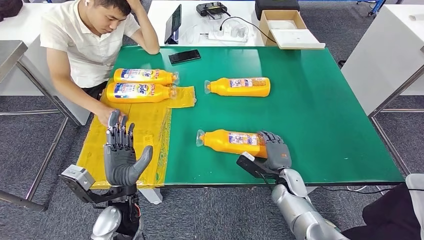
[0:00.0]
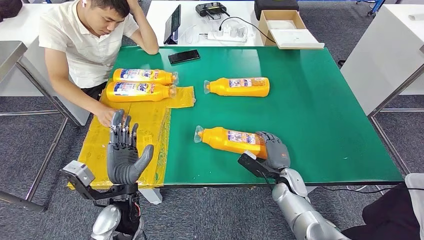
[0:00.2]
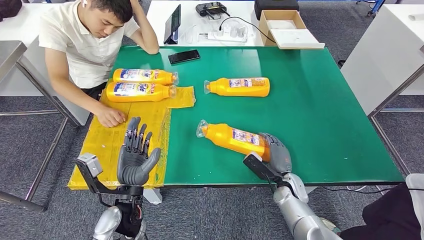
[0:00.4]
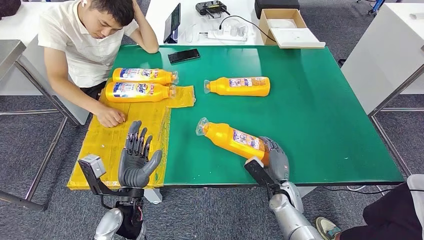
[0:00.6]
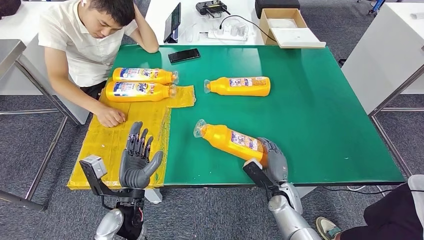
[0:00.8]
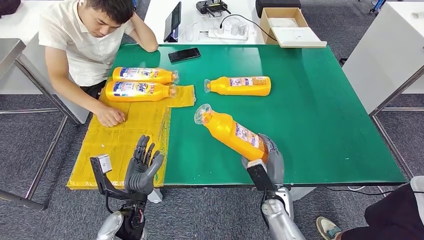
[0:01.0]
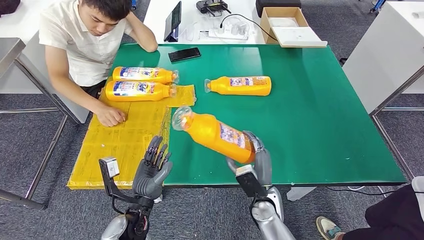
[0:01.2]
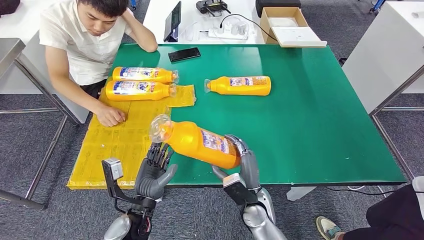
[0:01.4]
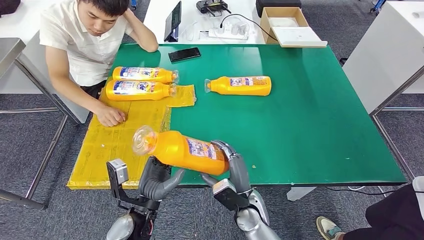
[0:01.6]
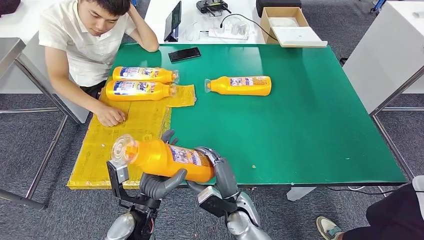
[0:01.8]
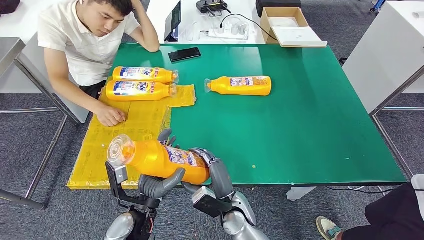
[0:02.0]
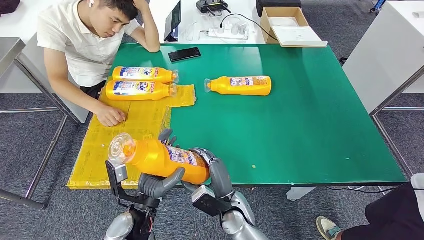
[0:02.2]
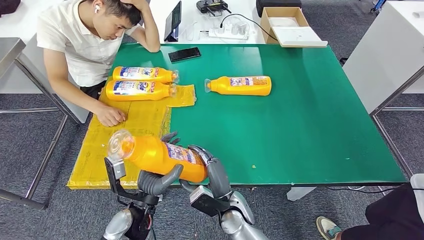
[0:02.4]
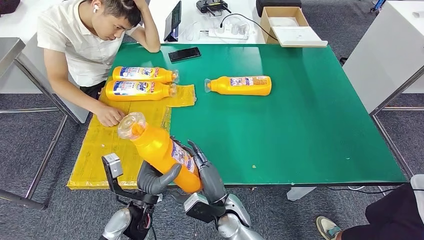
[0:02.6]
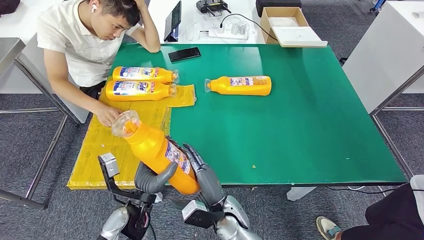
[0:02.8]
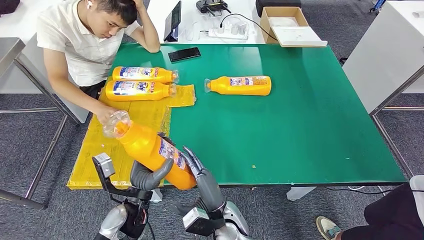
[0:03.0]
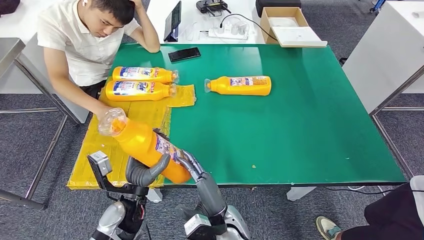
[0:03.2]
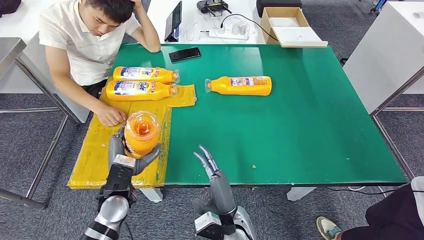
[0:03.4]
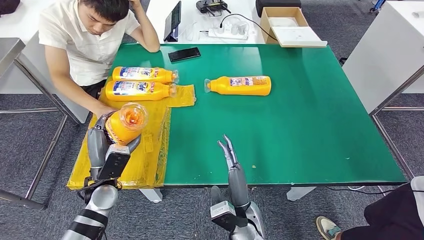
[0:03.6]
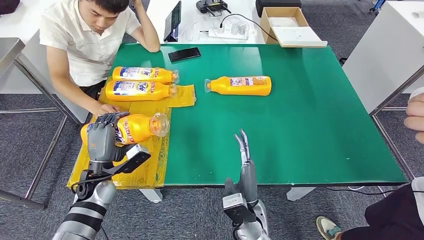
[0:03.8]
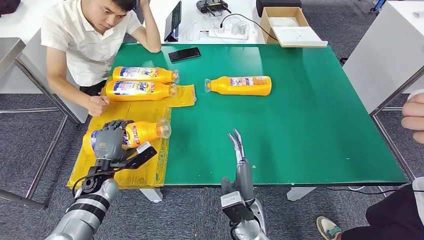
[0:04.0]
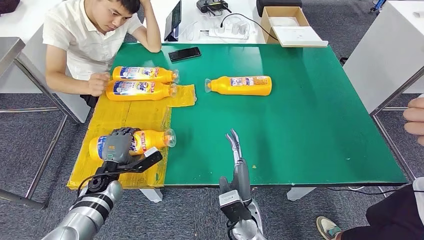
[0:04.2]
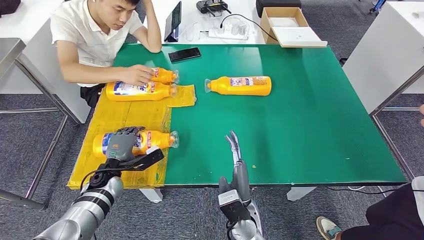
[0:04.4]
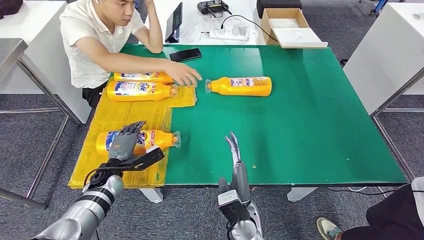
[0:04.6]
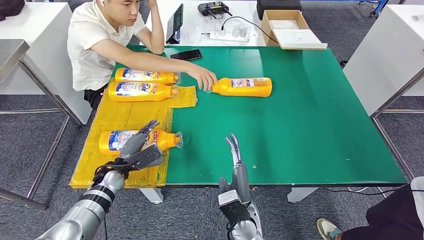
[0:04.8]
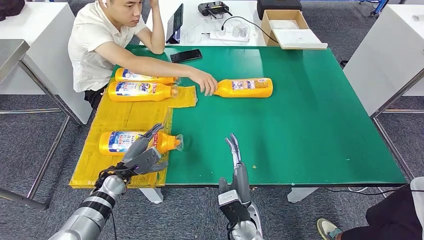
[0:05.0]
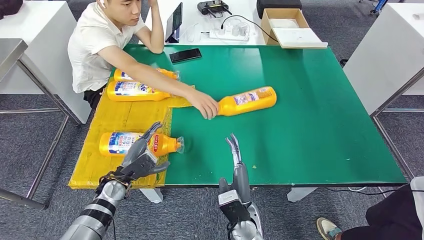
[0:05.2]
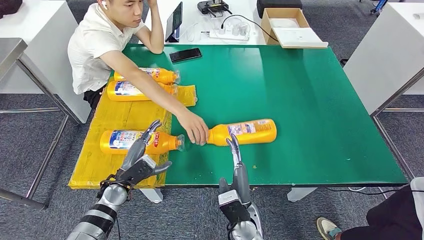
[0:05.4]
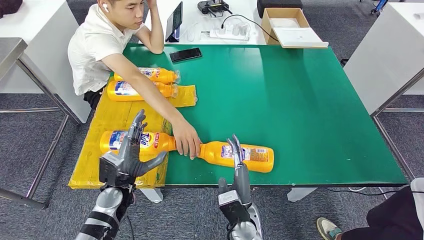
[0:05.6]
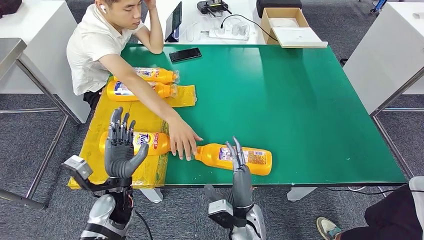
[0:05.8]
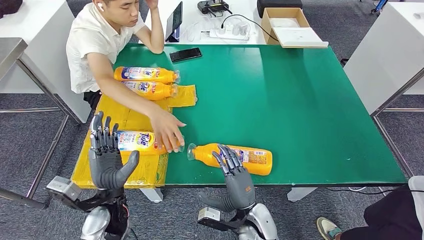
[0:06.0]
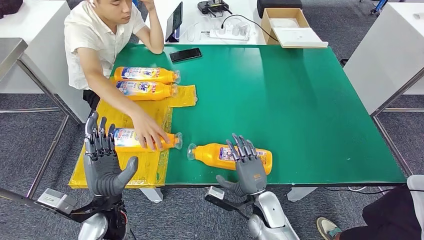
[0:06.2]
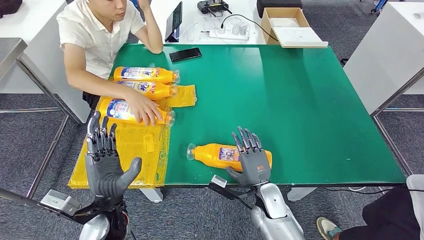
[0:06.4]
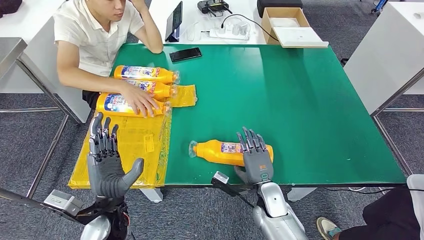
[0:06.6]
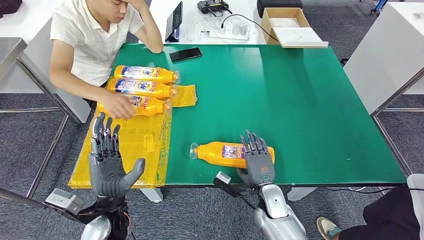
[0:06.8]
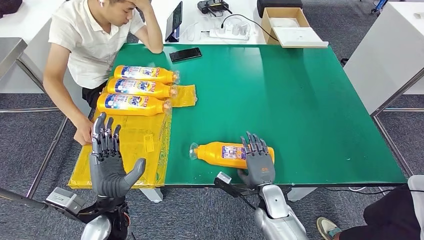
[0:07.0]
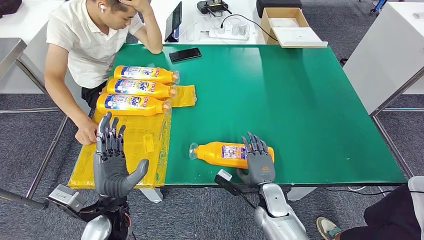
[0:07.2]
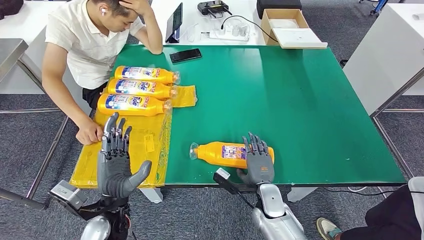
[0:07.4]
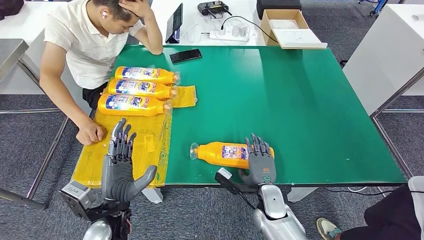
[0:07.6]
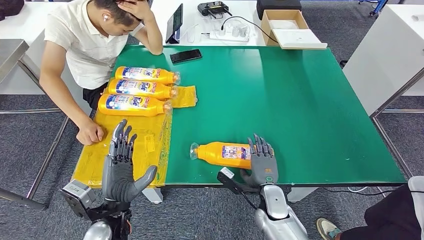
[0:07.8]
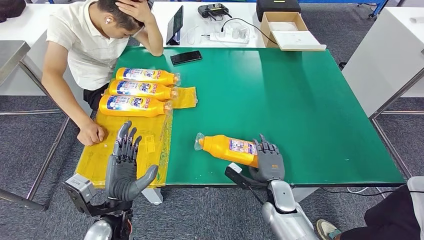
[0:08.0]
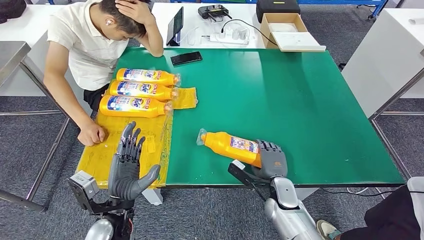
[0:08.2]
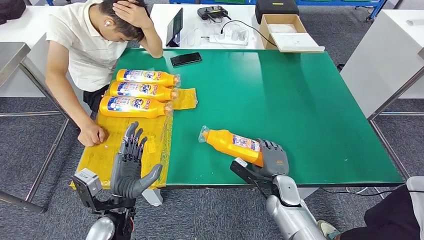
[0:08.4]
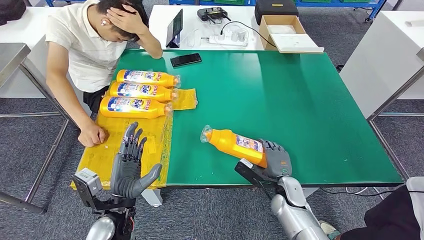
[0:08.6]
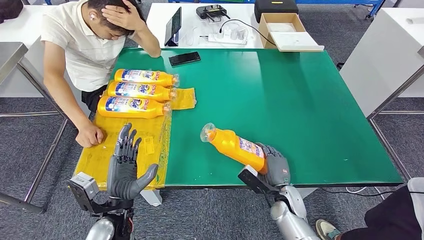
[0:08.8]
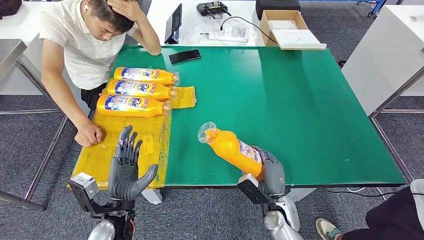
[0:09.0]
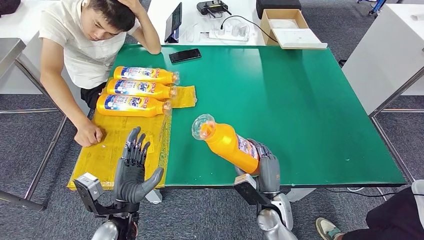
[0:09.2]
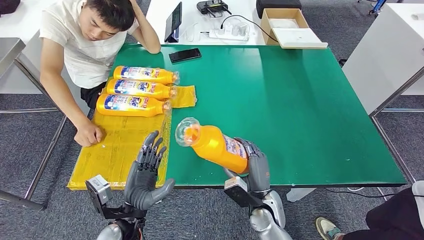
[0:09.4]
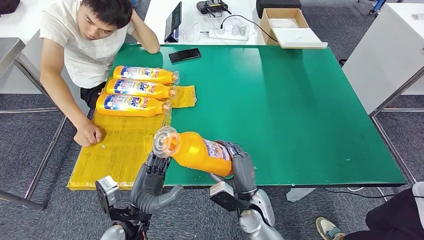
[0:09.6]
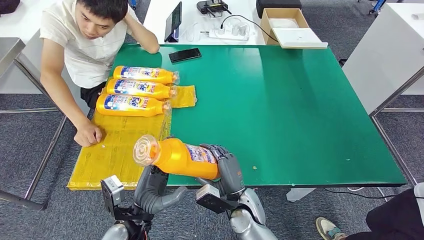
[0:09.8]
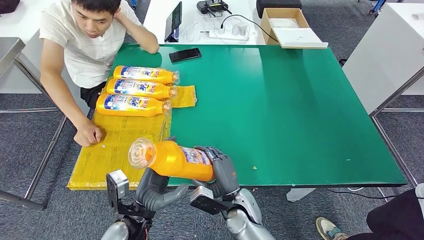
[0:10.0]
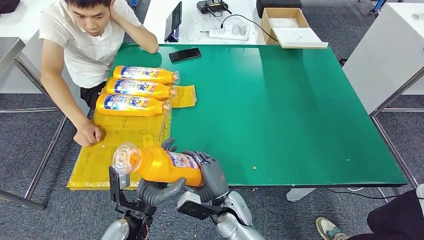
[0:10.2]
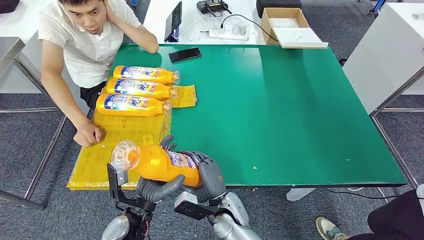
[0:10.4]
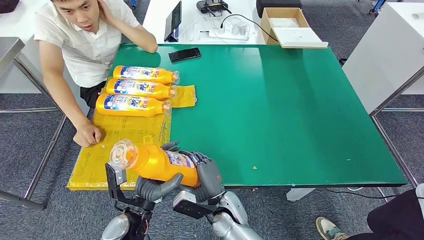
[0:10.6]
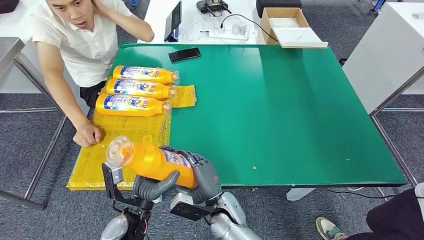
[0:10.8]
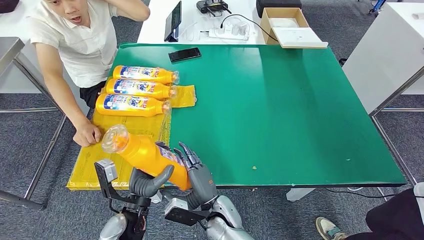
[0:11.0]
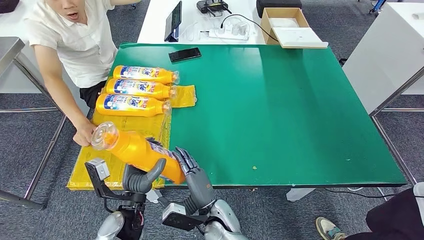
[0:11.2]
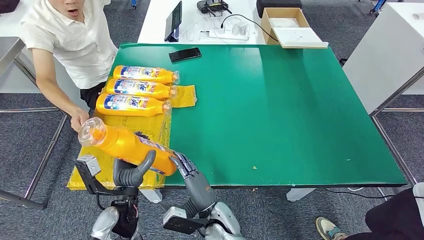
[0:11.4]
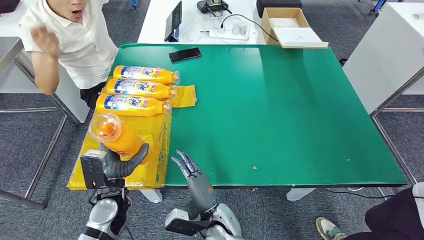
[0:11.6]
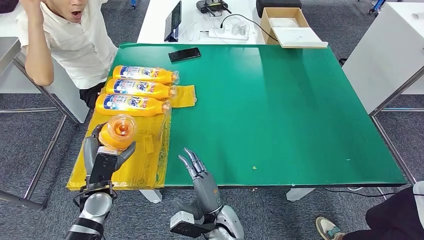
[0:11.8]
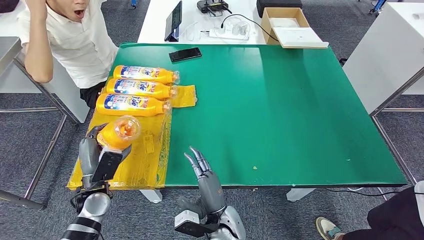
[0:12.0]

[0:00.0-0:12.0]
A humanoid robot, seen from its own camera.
Step, 0:00.0 to 0:03.0: Pick up the fast-moving consumer goods bottle from the table.
Step, 0:03.2 to 0:05.6: Flip the fast-moving consumer goods bottle to the front side.
Step, 0:05.8 to 0:09.2: Pick up the fast-moving consumer goods bottle from the table.
0:01.6 to 0:03.0: The right hand travels to the left by approximately 5 cm.
0:03.0 to 0:04.4: The left hand travels forward, to the left and downward by about 15 cm.
0:10.4 to 0:12.0: The left hand shifts approximately 15 cm to the left and forward.

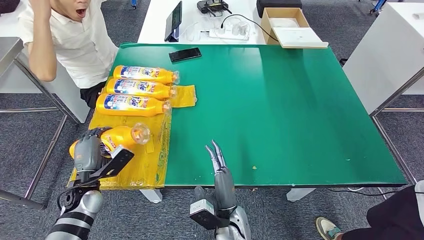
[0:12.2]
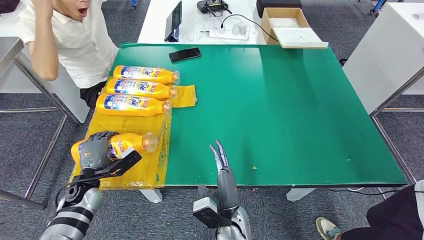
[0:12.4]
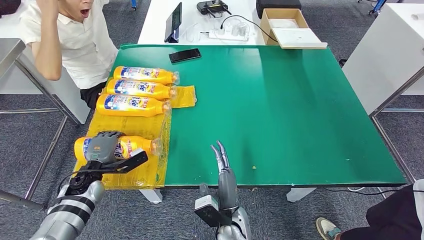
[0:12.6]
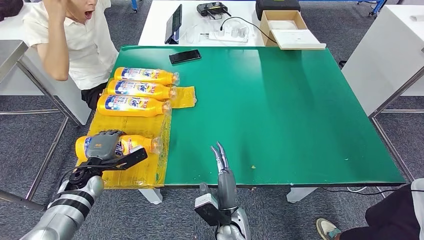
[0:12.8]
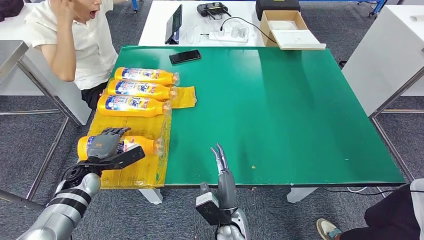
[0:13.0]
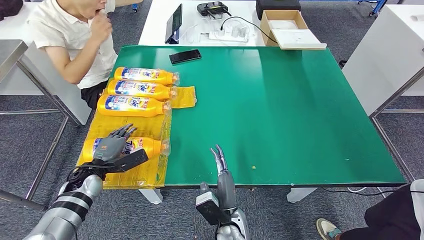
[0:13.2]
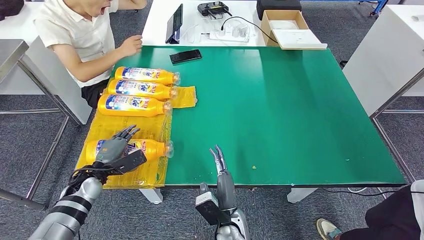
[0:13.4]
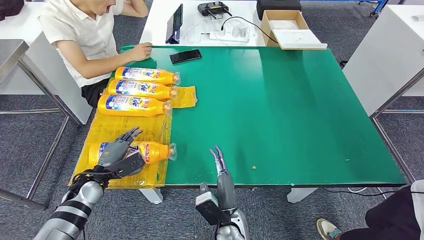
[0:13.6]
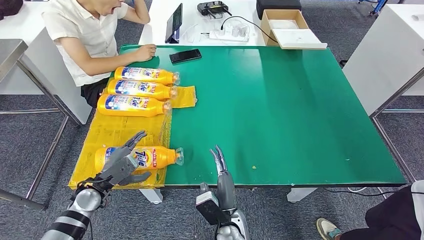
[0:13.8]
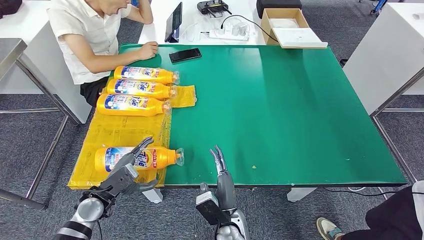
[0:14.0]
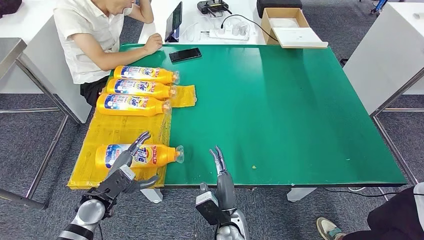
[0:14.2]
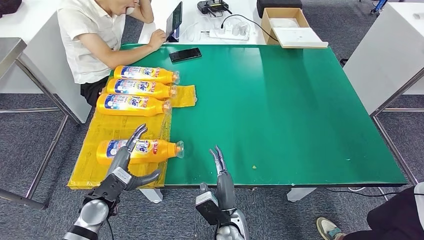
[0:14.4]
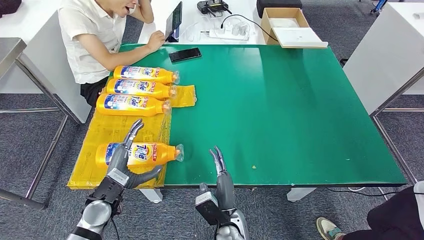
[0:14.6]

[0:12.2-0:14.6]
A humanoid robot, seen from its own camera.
Step, 0:12.2 to 0:14.6: Flip the fast-moving consumer goods bottle to the front side.
0:13.4 to 0:14.6: The left hand moves backward and to the right, some 10 cm.
